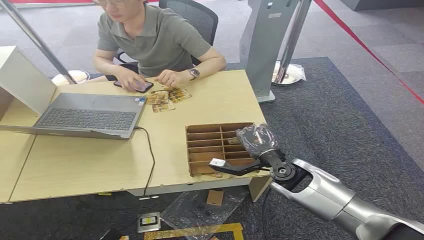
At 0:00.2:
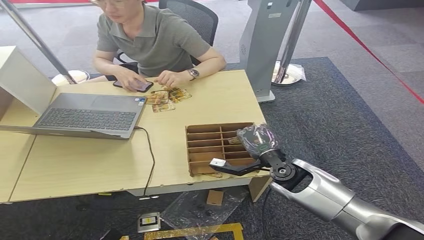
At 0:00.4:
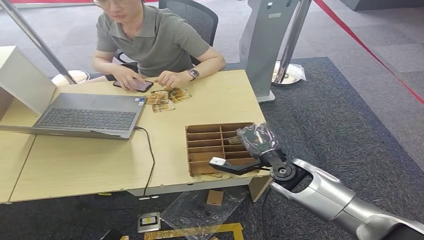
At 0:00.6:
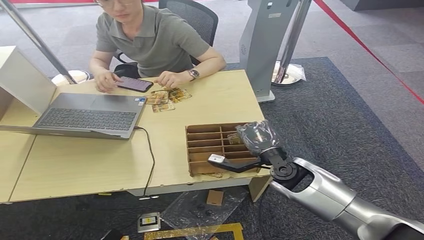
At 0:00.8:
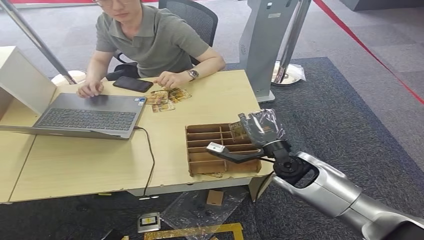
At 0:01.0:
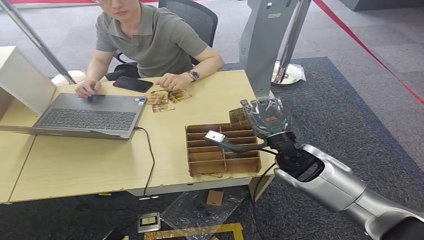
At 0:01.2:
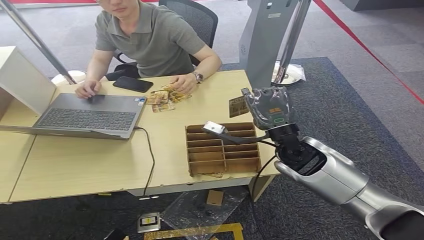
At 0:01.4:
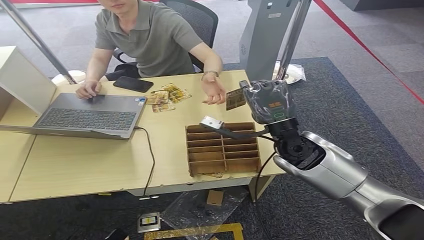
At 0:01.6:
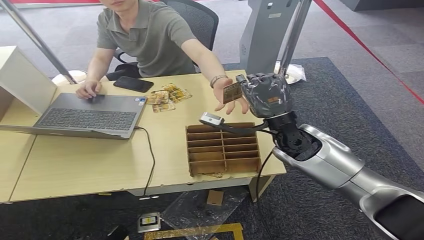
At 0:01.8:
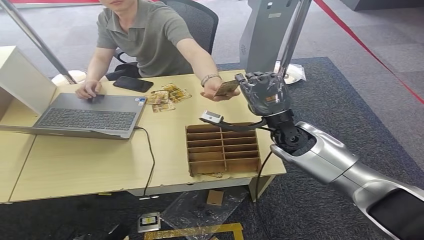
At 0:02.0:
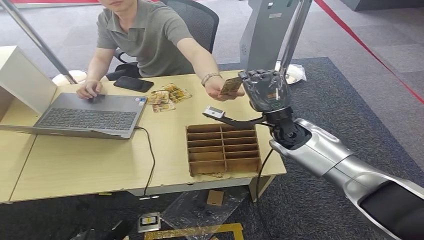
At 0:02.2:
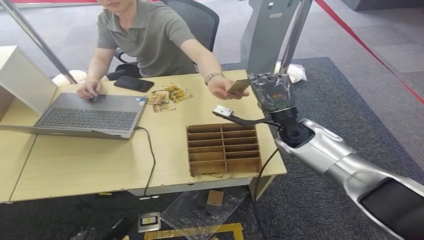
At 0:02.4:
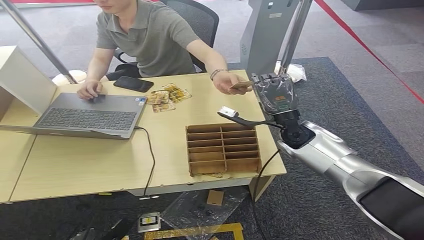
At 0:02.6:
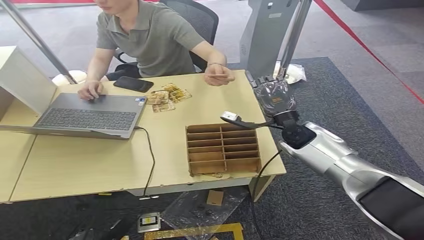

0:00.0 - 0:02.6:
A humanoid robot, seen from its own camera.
Step, 0:00.0 - 0:01.0: Pick up the room card from the card holder.
Step, 0:01.2 - 0:02.4: Hand the room card to the target.
0:01.2 - 0:02.6: The right hand travels forward by approximately 5 cm.
